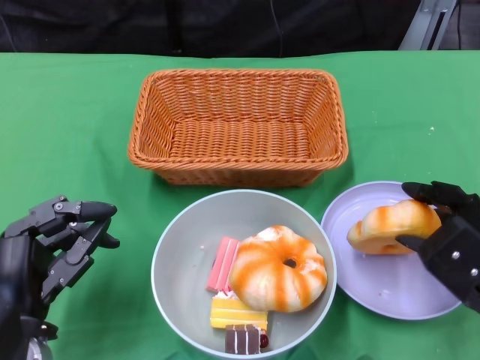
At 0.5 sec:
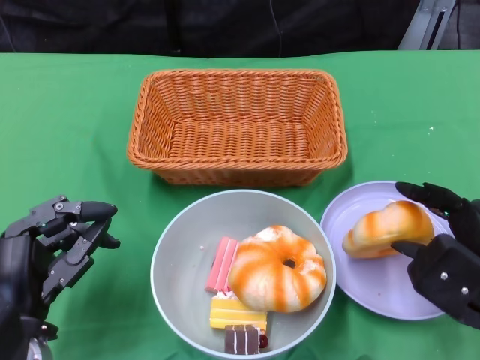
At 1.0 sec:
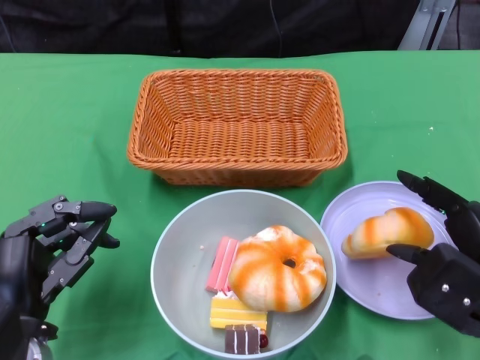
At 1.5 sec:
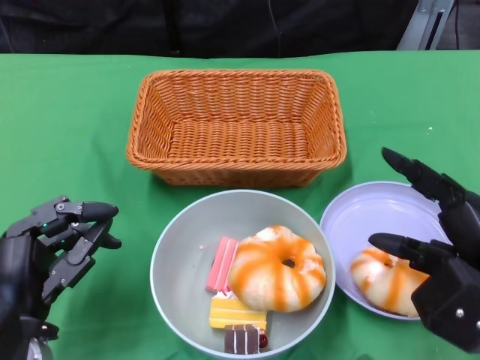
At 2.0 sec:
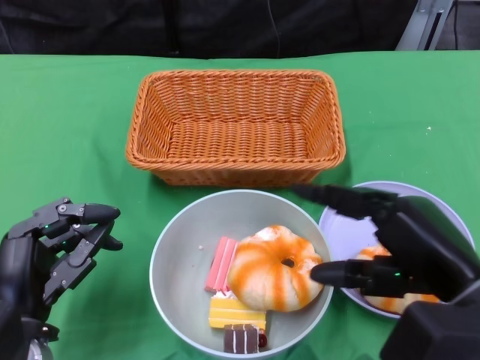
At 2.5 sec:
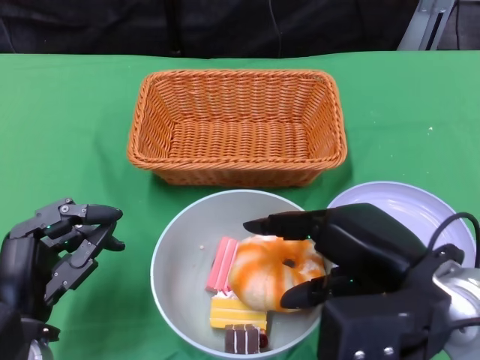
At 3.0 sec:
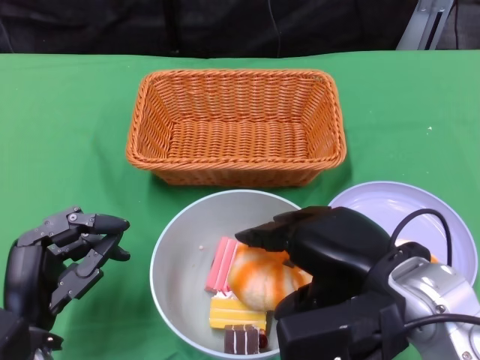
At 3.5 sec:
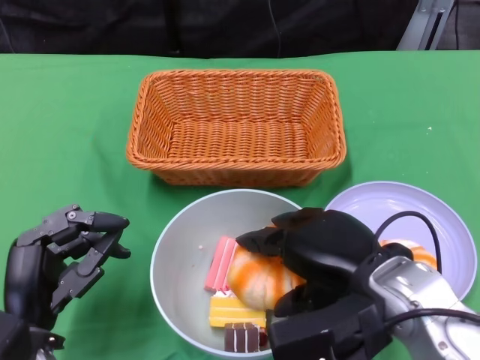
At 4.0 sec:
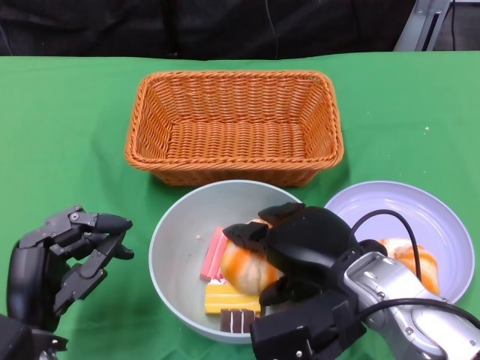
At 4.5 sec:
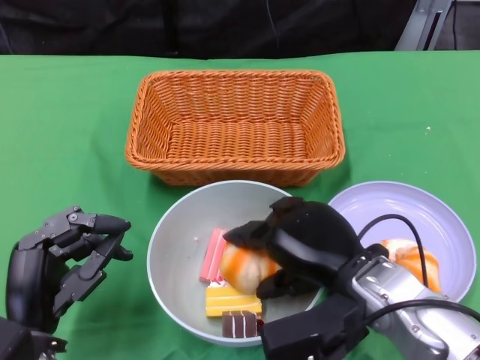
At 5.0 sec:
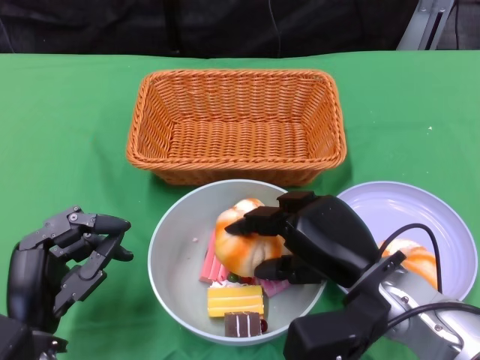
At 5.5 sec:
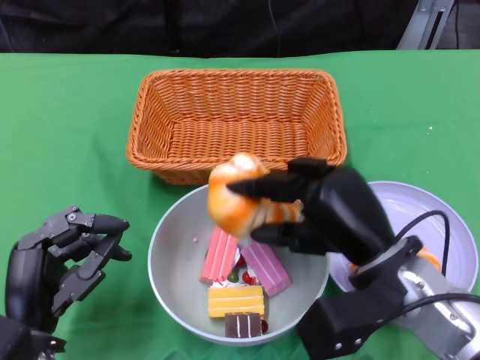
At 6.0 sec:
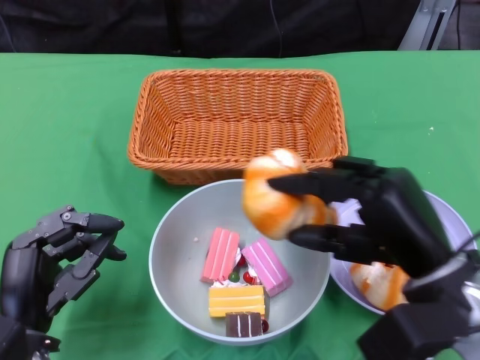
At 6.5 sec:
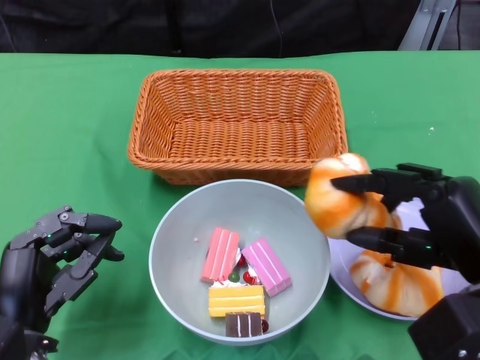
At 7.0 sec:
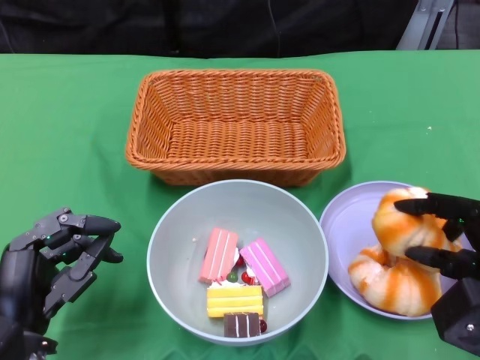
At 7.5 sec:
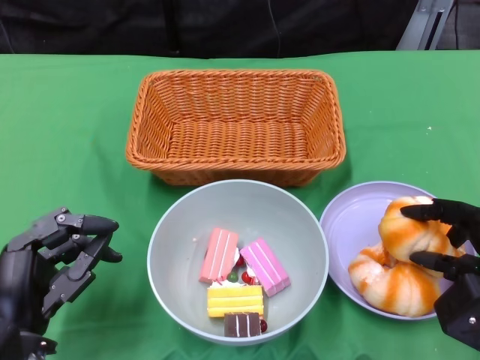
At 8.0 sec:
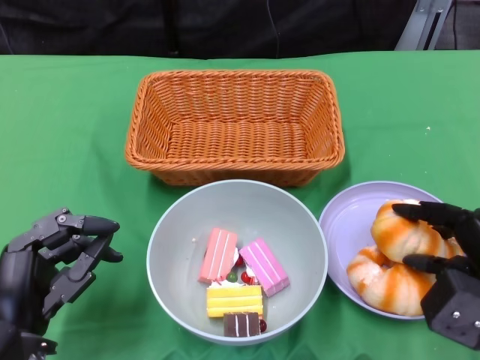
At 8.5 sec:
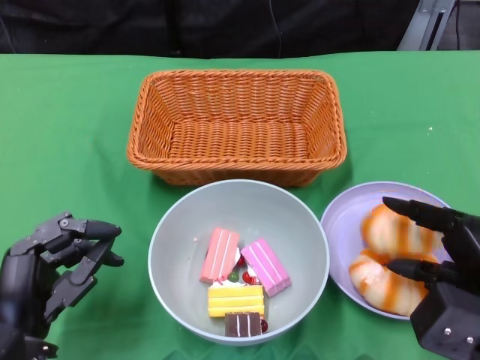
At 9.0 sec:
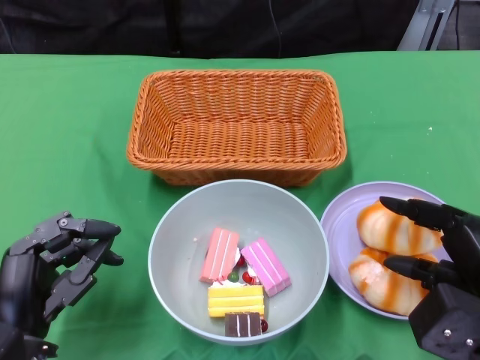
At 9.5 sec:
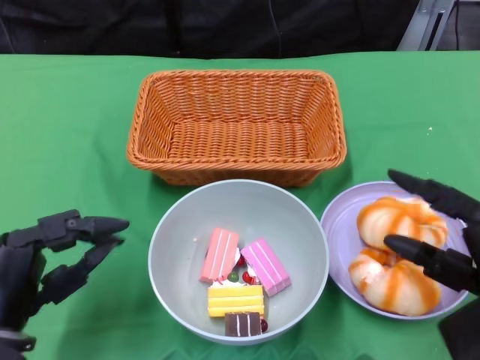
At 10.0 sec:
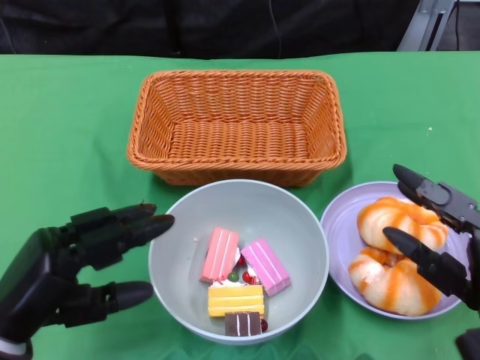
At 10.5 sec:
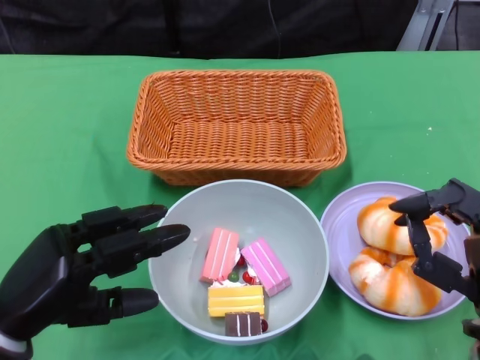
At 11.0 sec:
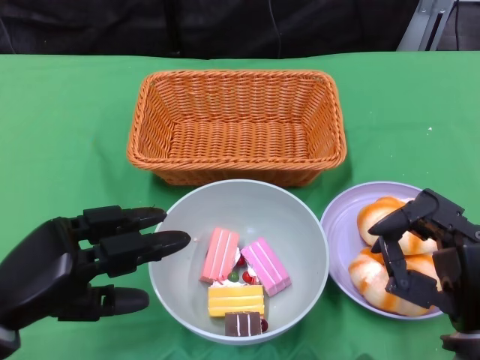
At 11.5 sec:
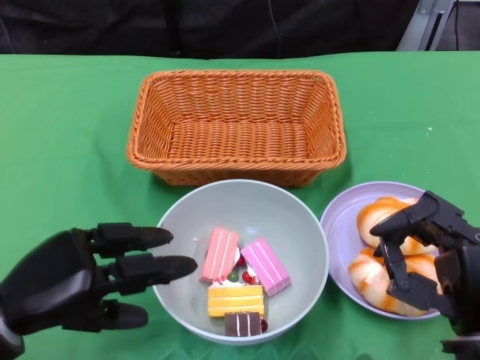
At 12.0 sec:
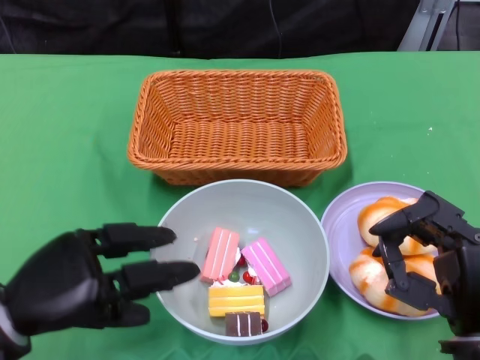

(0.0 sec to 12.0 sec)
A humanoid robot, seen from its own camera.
Step, 0.0 sec - 10.0 sec: Pick up the bread with the right gripper and place it on the plate.
0.0 sec - 2.0 sec: The right hand is displaced upward by about 5 cm.
2.0 sec - 4.0 sec: The right hand is displaced to the left by approximately 10 cm.
4.0 sec - 6.0 sec: The right hand shifts about 5 cm to the right.
6.0 sec - 8.0 sec: The right hand is displaced to the right and downward by approximately 10 cm.
8.0 sec - 10.0 sec: The right hand shifts by roughly 5 cm.

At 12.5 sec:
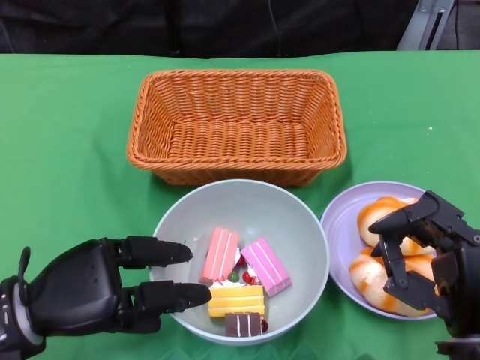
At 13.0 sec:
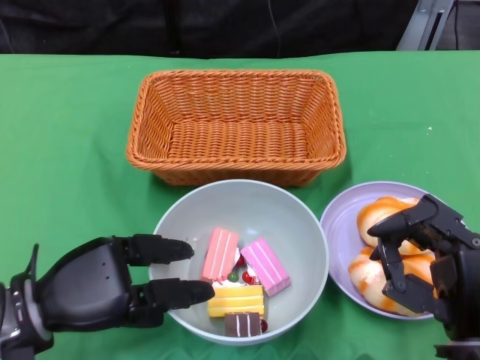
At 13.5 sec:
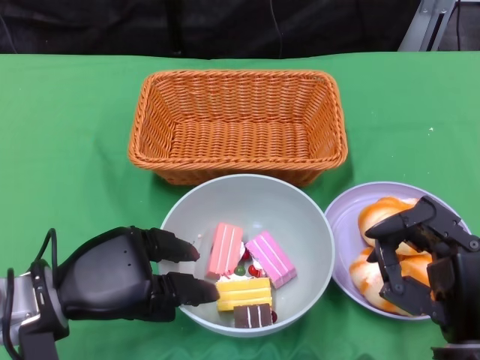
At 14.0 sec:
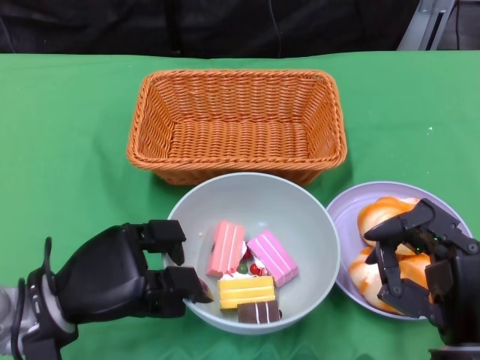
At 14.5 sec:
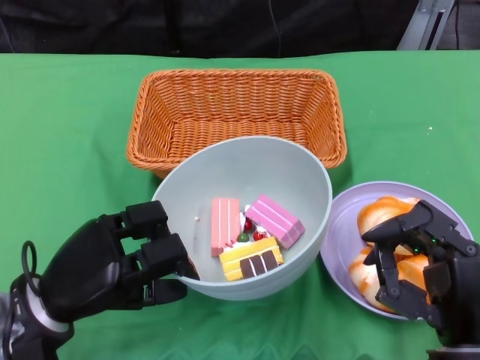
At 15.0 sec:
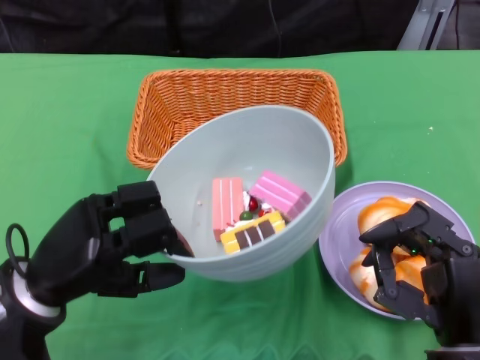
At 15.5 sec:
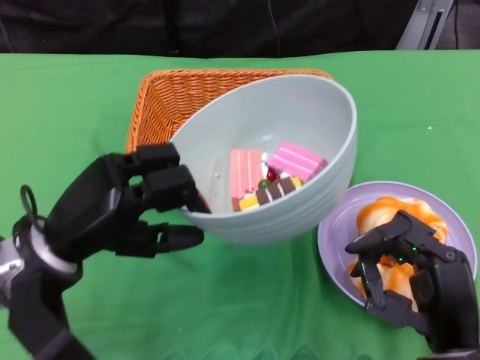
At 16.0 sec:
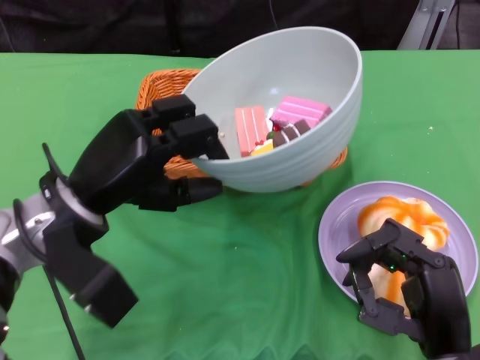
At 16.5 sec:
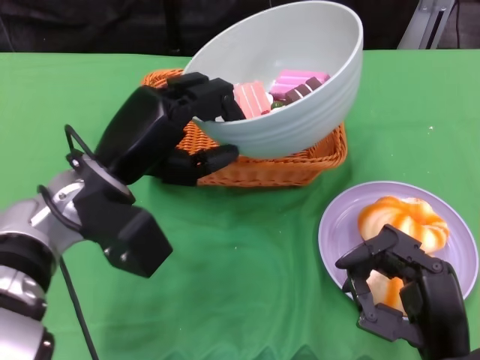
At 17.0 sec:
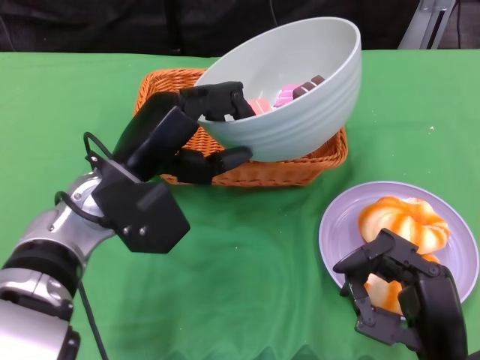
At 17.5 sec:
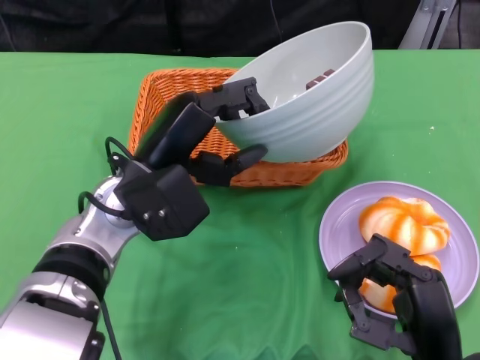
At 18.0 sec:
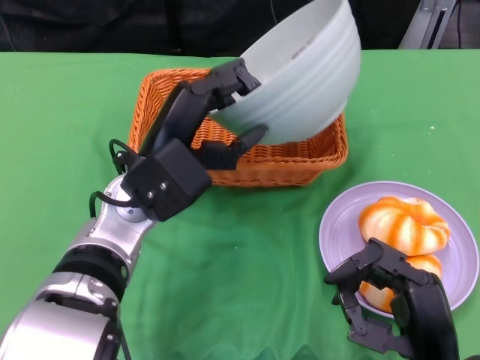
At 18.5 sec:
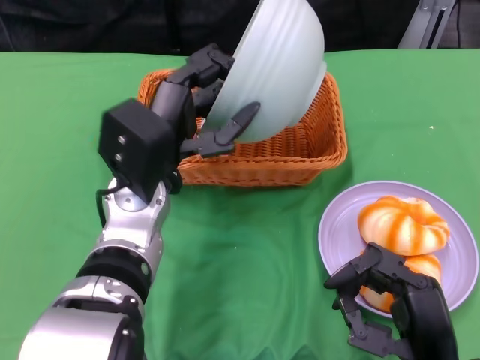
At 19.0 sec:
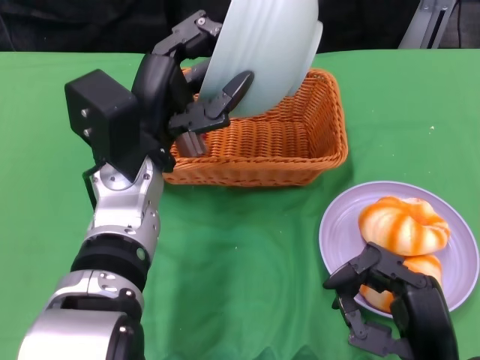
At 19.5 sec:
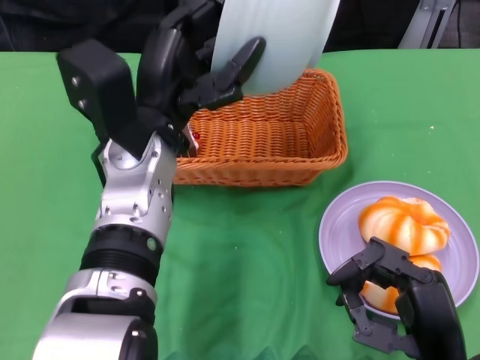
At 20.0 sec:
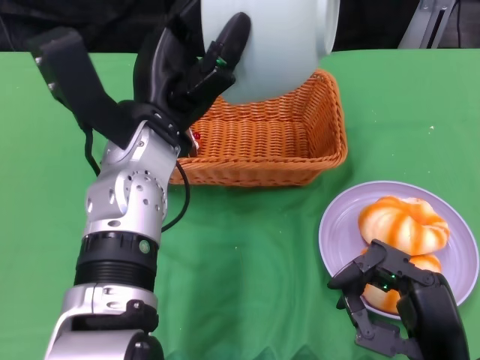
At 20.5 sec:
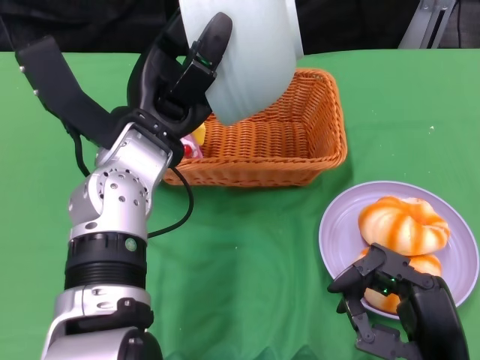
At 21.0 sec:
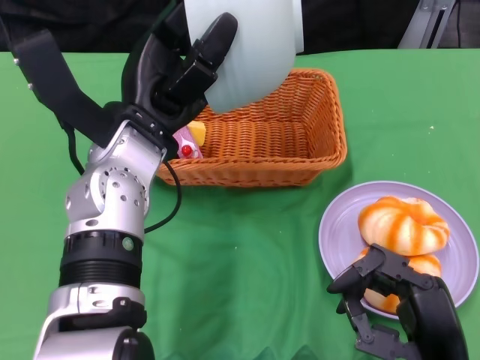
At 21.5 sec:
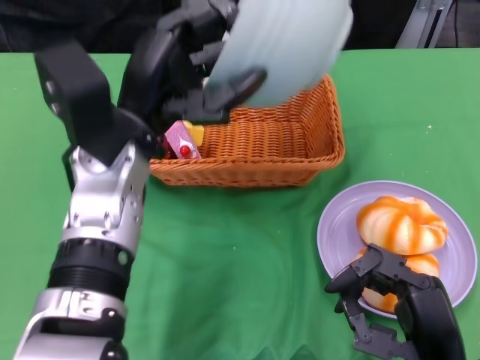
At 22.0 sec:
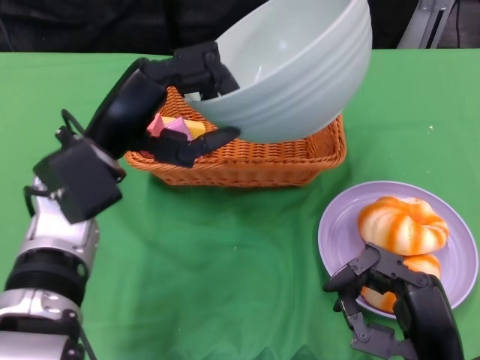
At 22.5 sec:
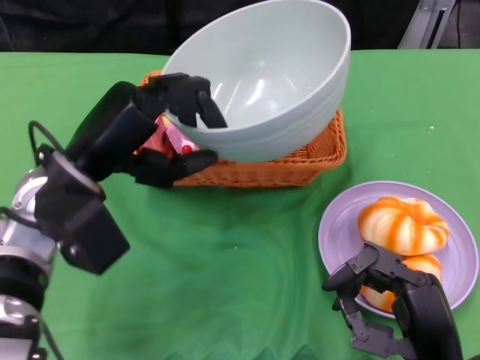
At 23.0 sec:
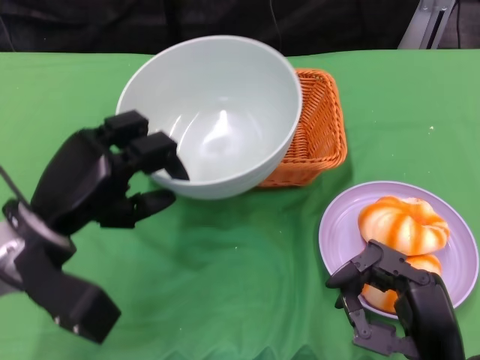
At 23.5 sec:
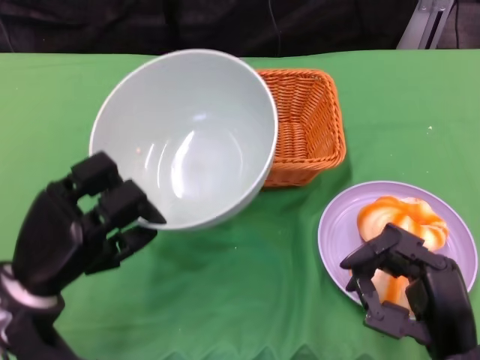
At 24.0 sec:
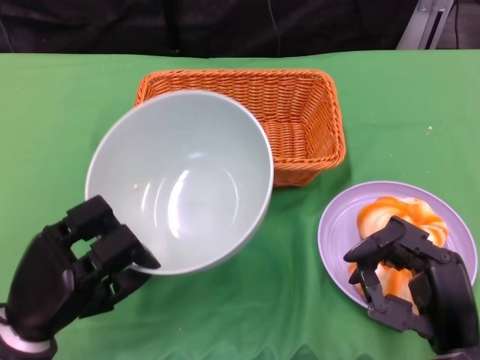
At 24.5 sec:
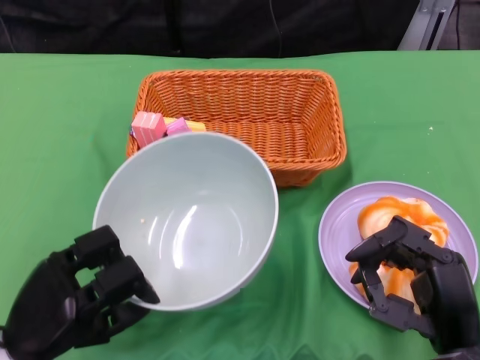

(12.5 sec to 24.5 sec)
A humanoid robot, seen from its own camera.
Step, 14.0 sec - 21.0 sec: Pour the cake into the basket with the left gripper.
14.5 sec - 16.5 sec: The left hand travels upward, forward and to the right by about 15 cm.
16.5 sec - 18.5 sec: The left hand changes place by approximately 5 cm.
20.5 sec - 22.5 sec: The left hand is displaced to the left by about 5 cm.
22.5 sec - 24.5 sec: The left hand shifts about 20 cm downward, backward and to the left.
